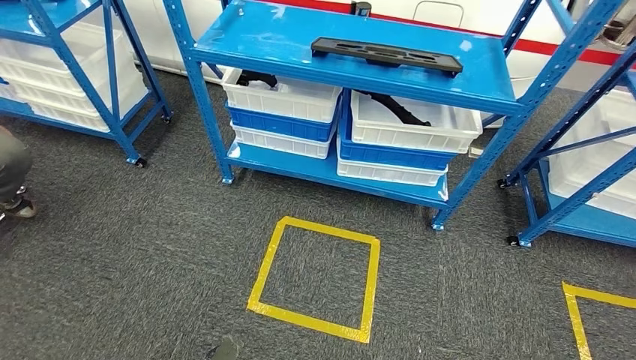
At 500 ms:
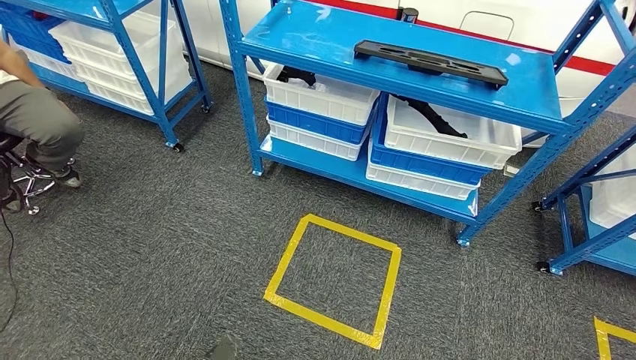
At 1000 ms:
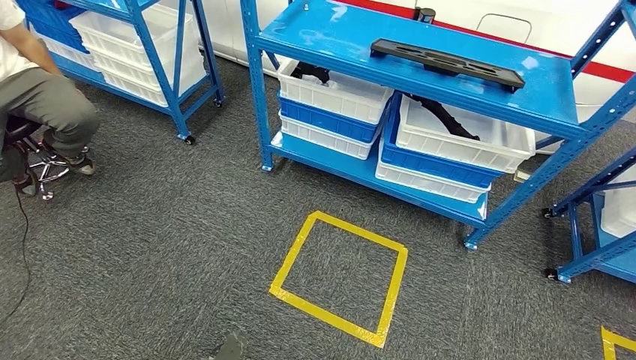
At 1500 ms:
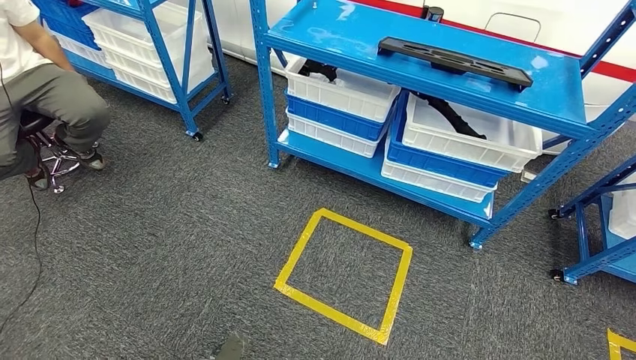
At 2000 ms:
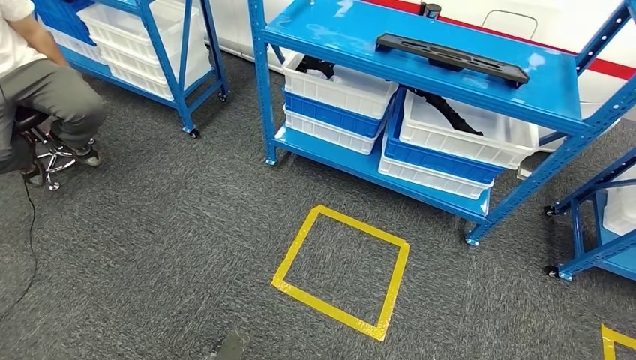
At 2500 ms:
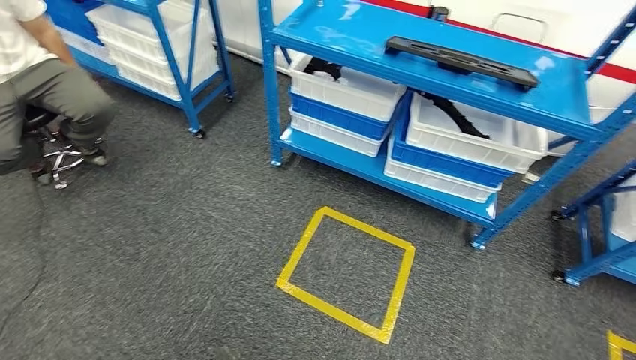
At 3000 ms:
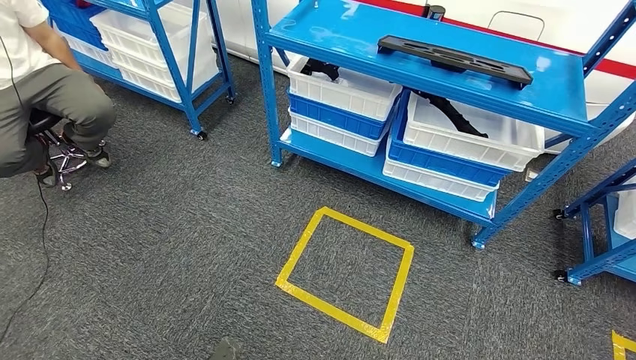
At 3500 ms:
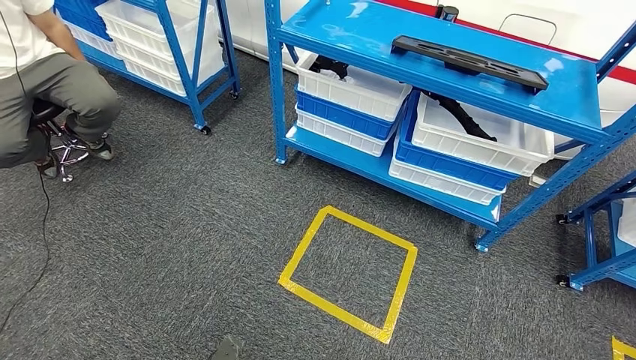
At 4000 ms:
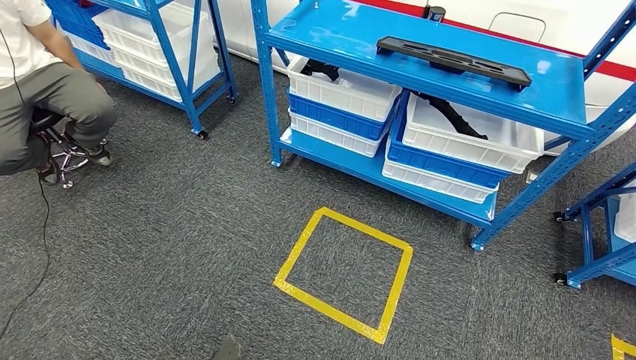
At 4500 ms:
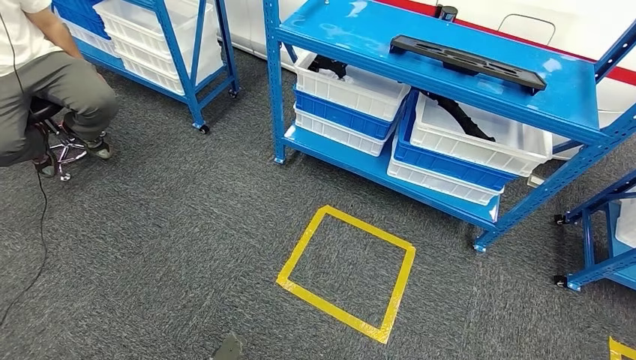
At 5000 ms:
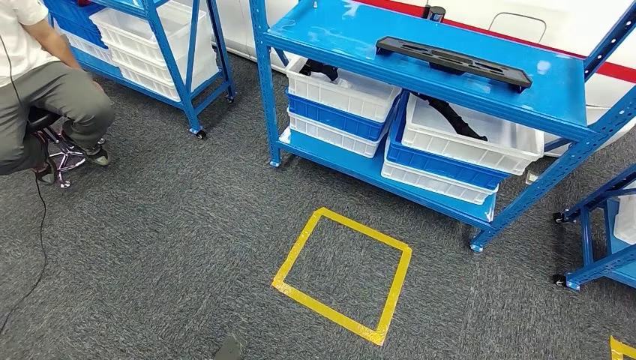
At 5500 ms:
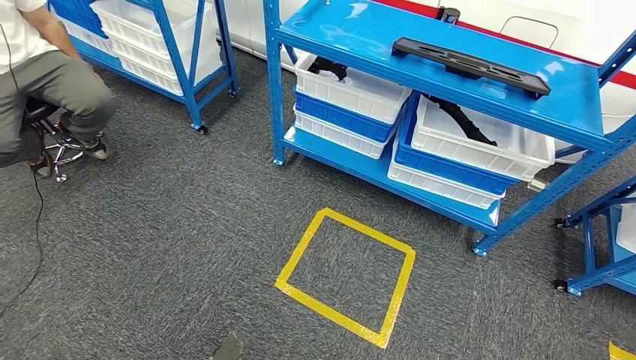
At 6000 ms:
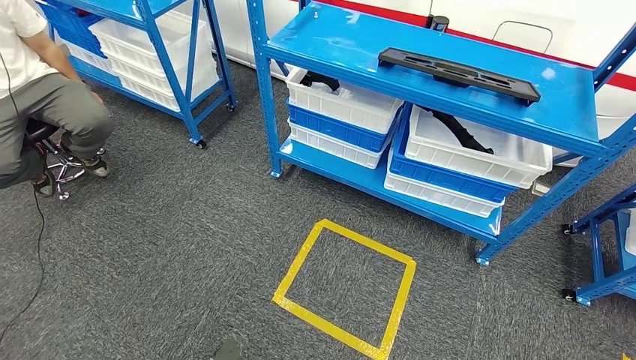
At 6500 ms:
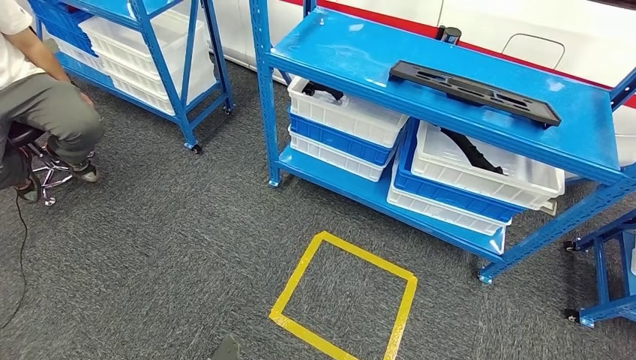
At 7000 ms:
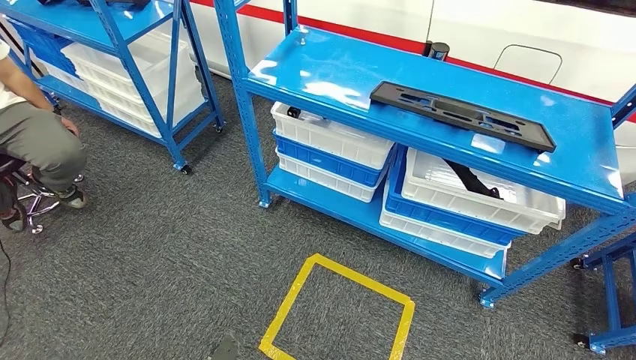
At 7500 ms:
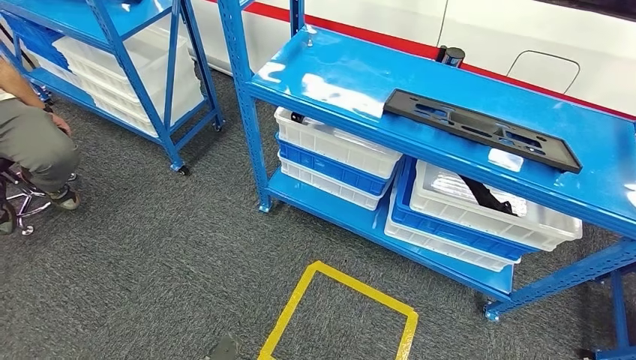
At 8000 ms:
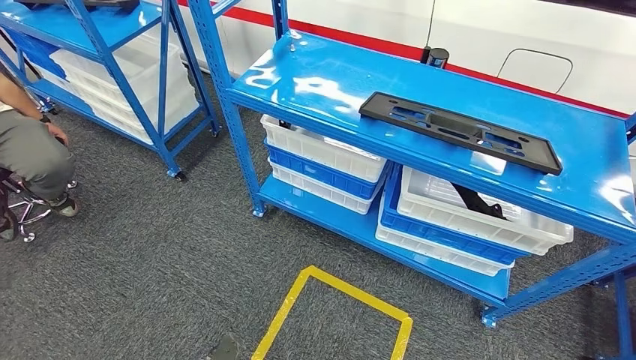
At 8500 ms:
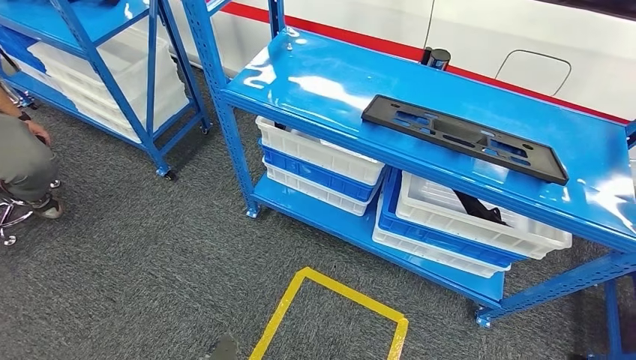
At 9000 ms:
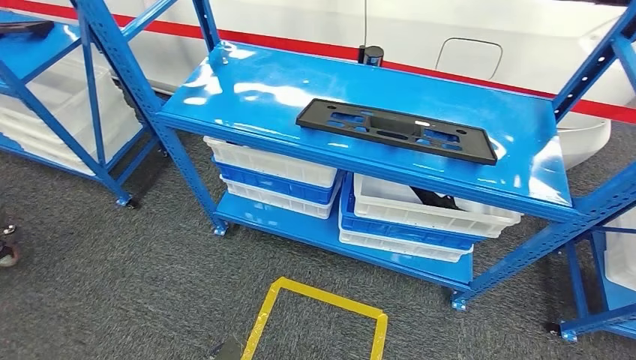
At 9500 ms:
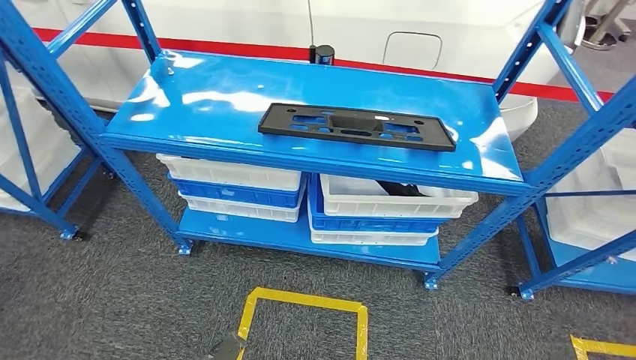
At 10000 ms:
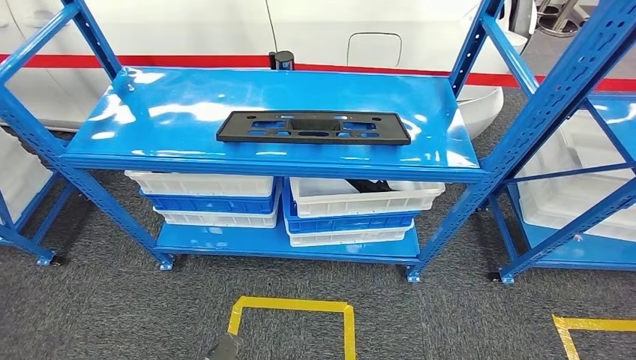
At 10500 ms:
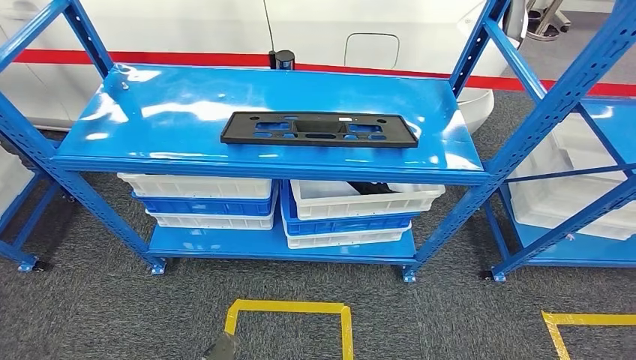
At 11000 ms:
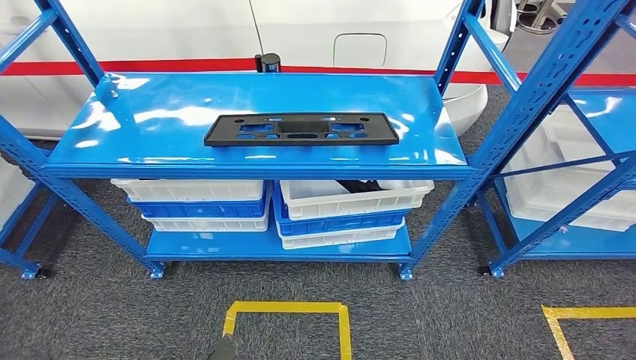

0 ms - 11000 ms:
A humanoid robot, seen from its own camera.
3500 ms - 5500 ms: The two hands keep their place.

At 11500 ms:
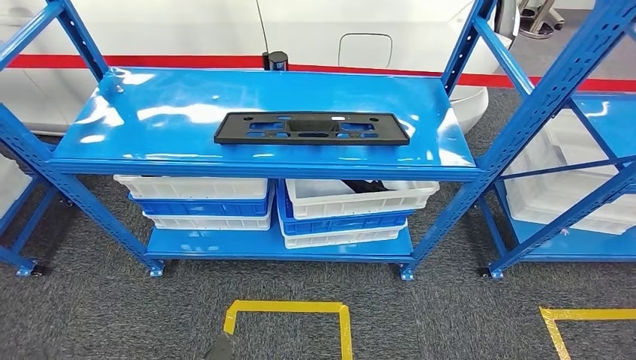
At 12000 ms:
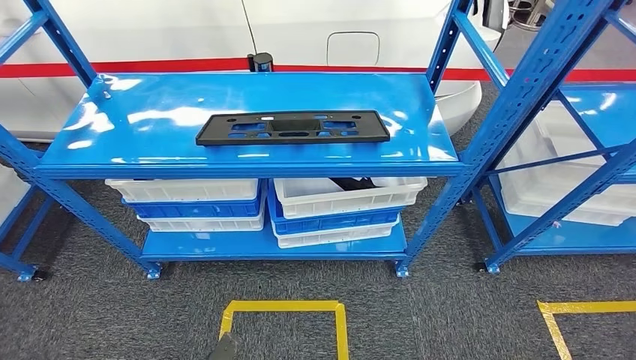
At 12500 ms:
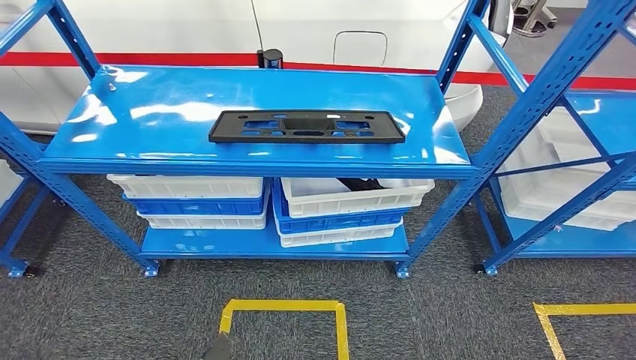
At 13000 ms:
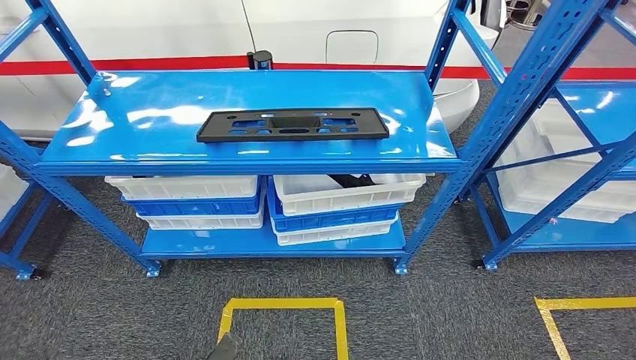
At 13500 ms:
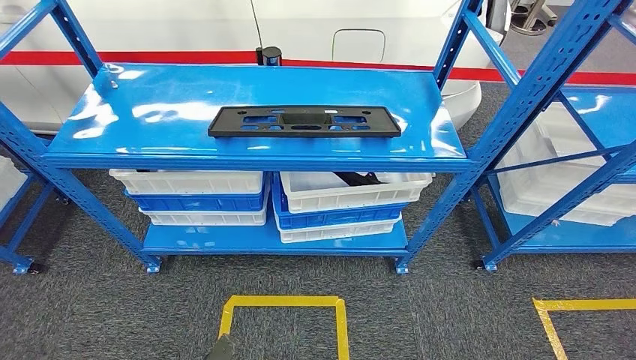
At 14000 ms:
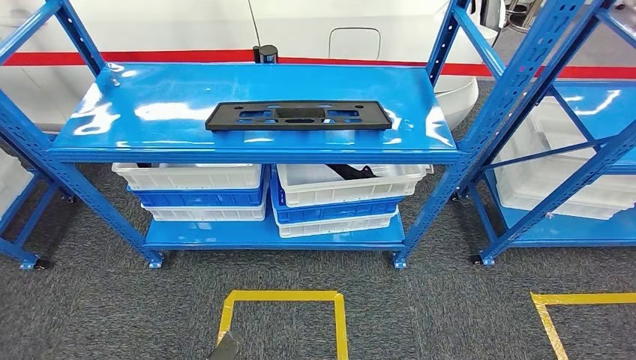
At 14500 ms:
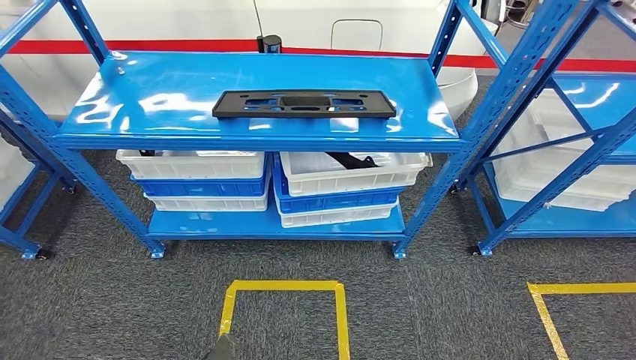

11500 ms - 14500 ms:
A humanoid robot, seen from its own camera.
Step, 11500 ms - 14500 ms: Return to the initial position at the shelf.
